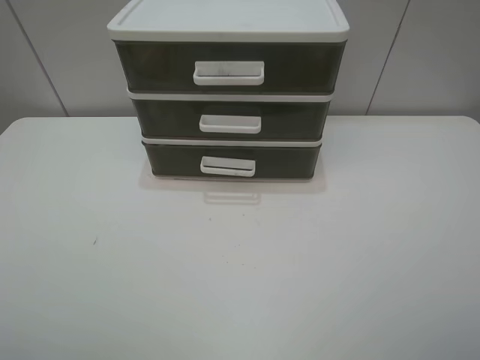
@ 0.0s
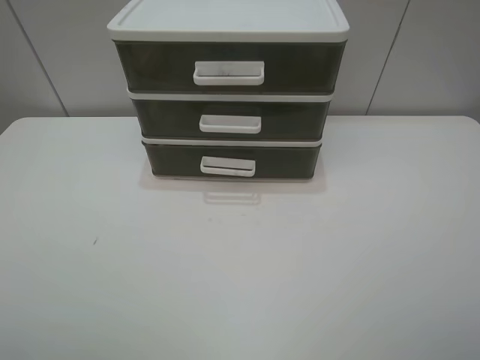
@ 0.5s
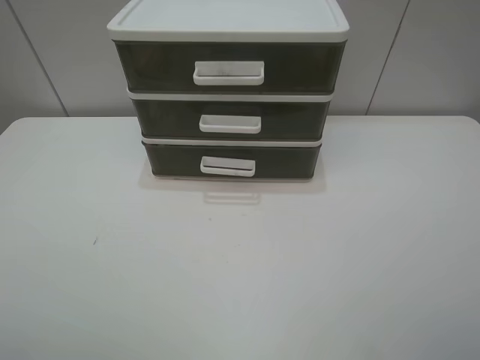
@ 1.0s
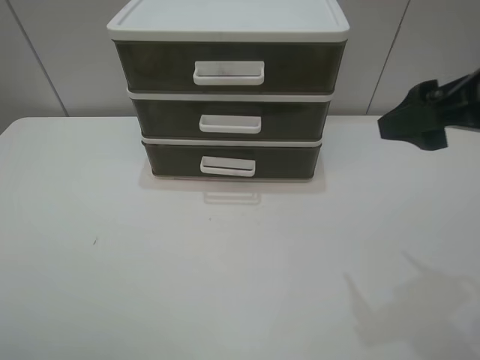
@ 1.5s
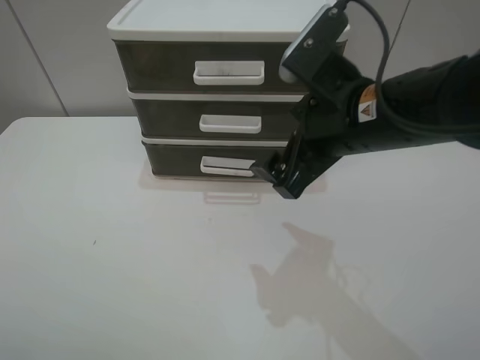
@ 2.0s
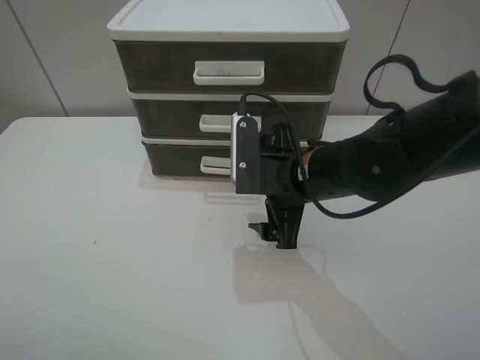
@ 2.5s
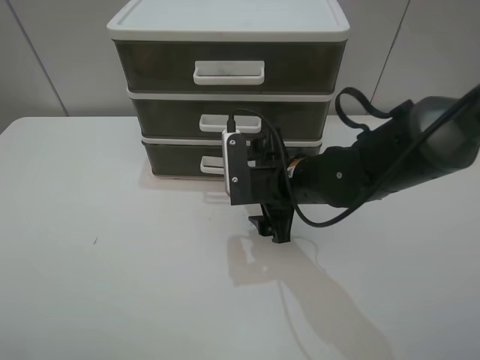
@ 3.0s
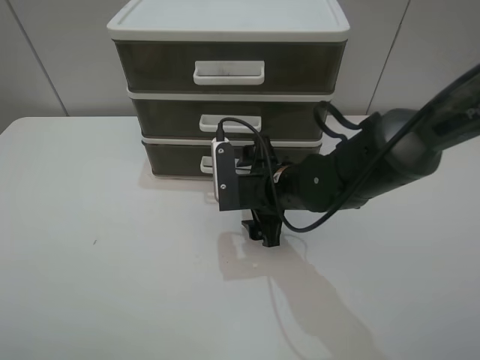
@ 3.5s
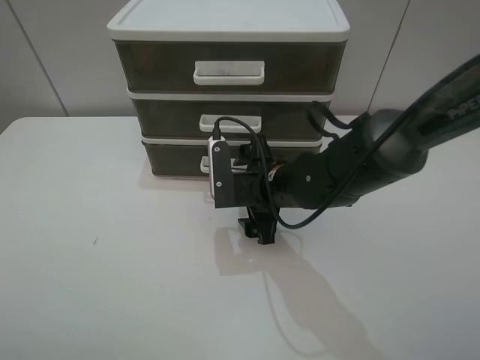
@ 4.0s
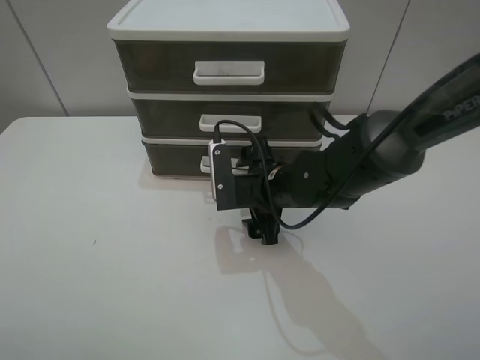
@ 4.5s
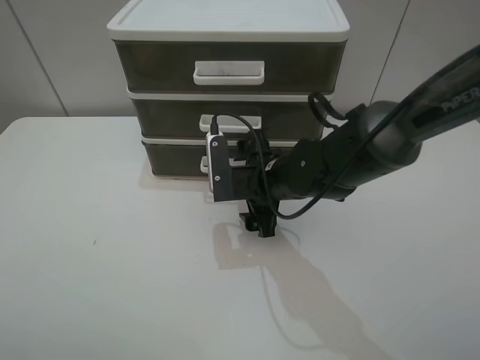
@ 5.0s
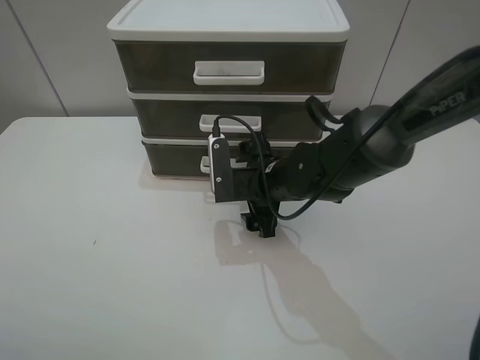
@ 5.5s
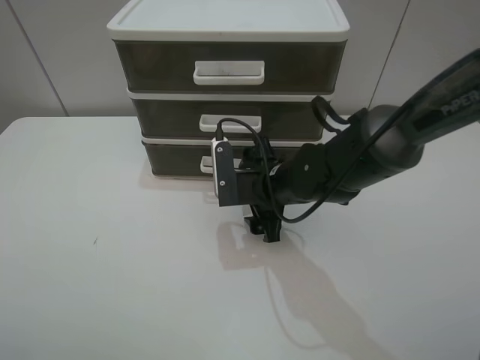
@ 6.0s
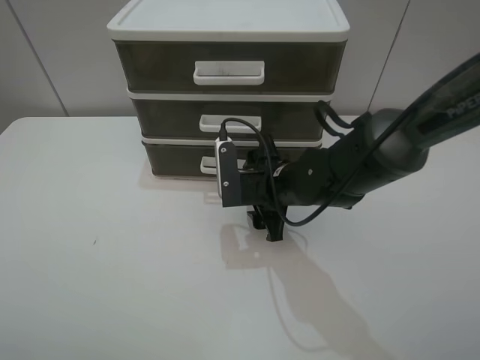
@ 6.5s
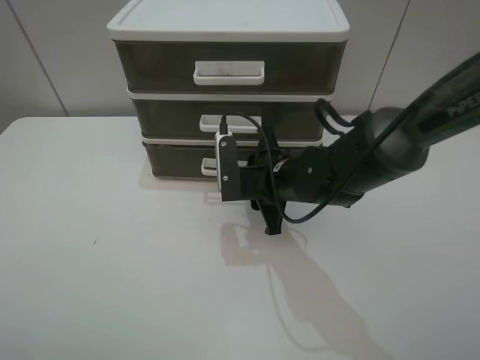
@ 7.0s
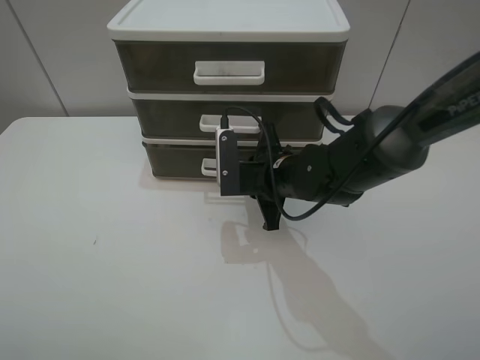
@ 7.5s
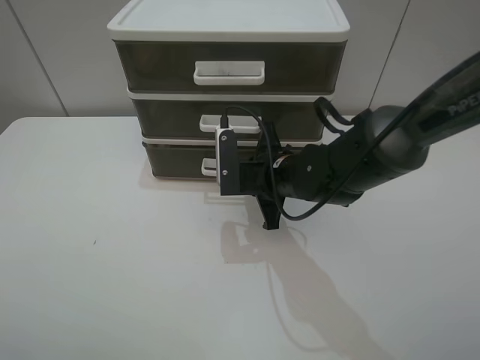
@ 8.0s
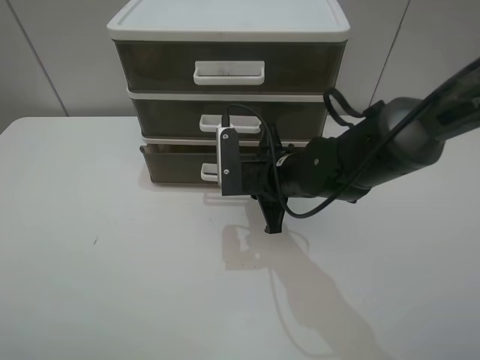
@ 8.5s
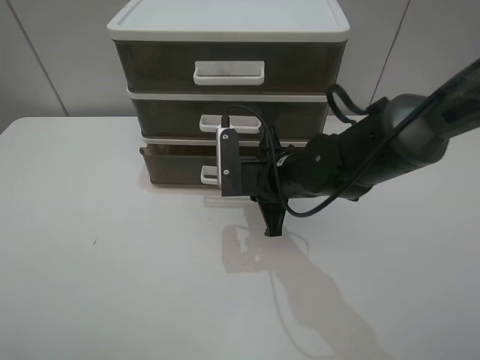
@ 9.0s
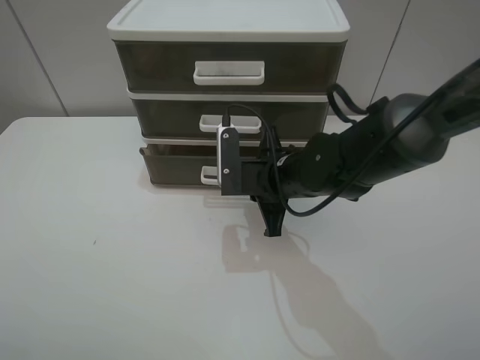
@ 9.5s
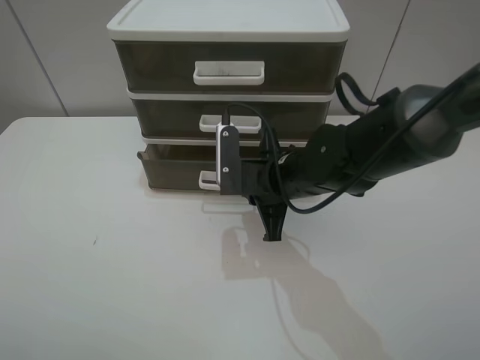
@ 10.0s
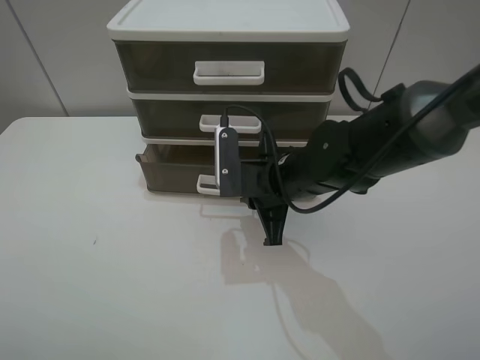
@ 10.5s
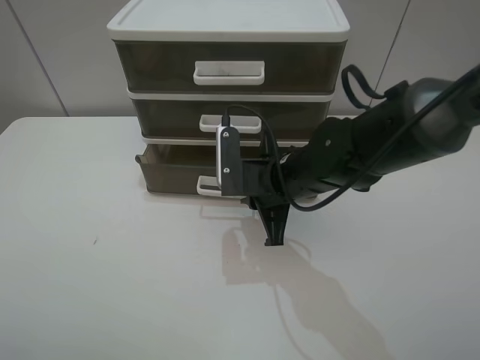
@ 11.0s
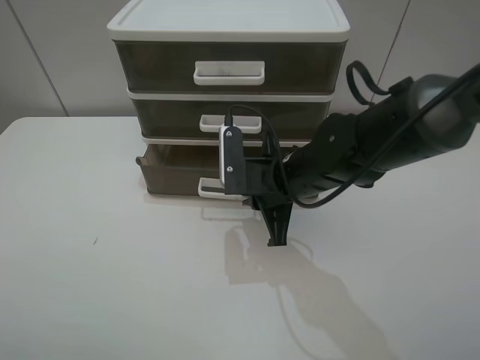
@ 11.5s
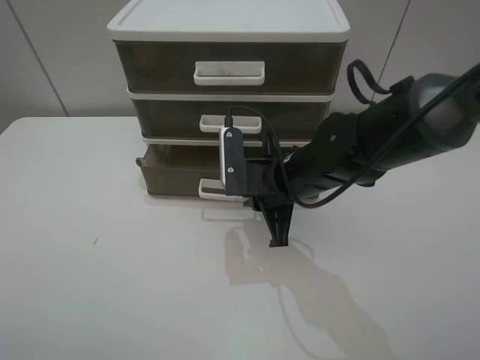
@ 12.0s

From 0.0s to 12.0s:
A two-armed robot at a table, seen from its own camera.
Task of the whole recording: open the bottom drawer.
Step, from 0.0s to 8.0s: Grab the bottom drawer with the right gripper.
From 0.0s to 2.0s: The right gripper moves forward and to the left, about 30 cm.
From 2.0s to 4.0s: The right gripper shifts some 15 cm downward.
From 4.0s to 6.0s: The two grippers keep their place.
From 6.0s to 8.0s: The right gripper closes.
From 8.0s to 12.0s: There are only small adjustments of the grippers.

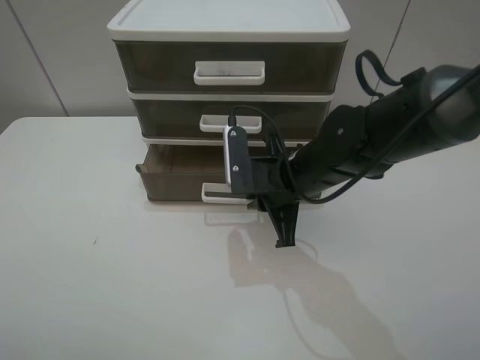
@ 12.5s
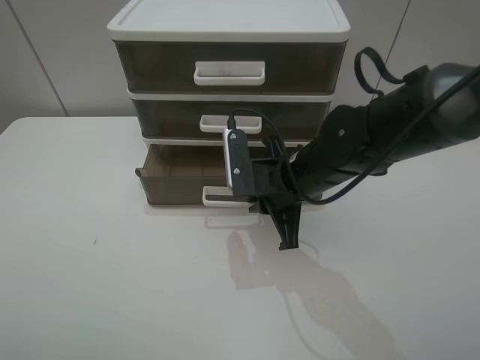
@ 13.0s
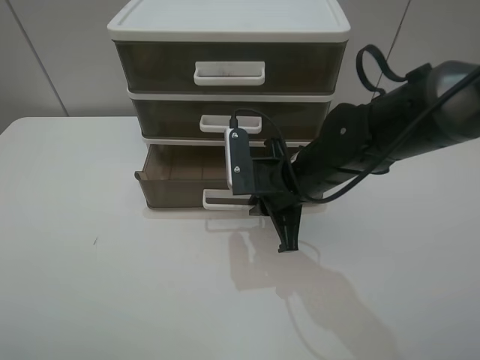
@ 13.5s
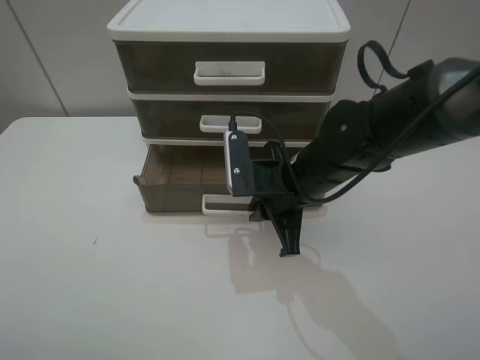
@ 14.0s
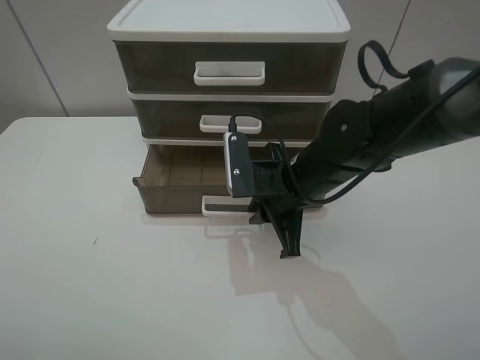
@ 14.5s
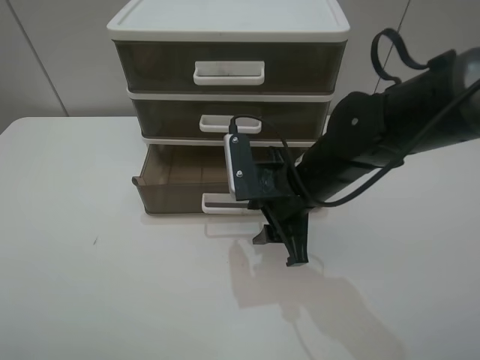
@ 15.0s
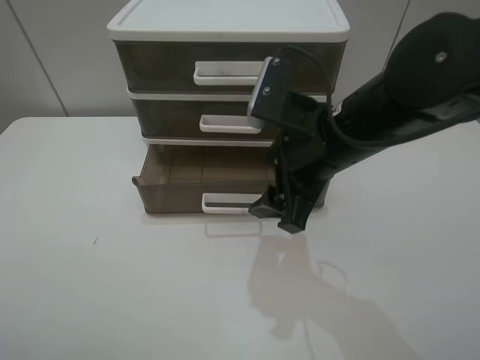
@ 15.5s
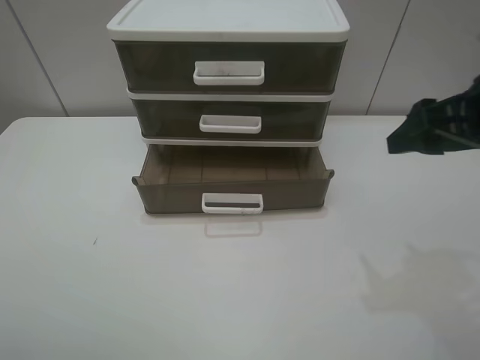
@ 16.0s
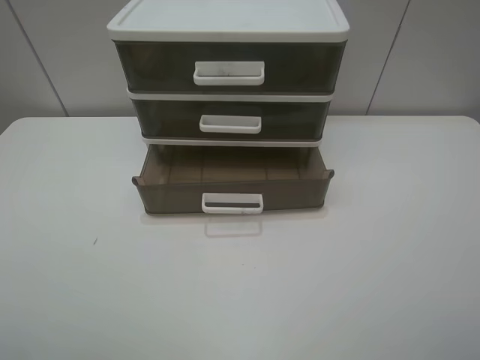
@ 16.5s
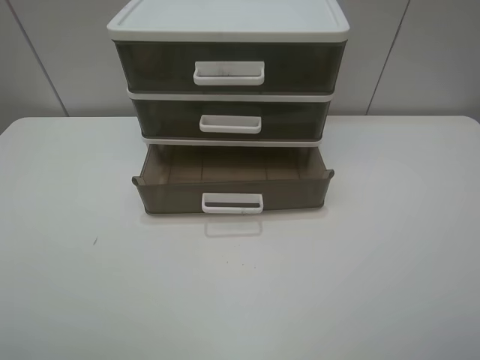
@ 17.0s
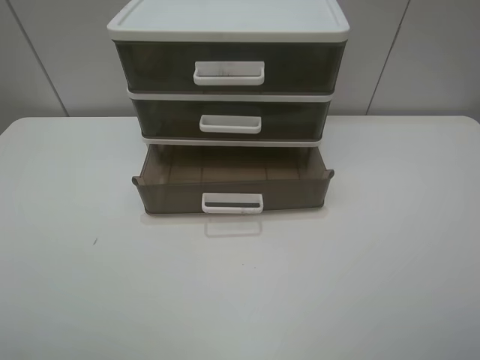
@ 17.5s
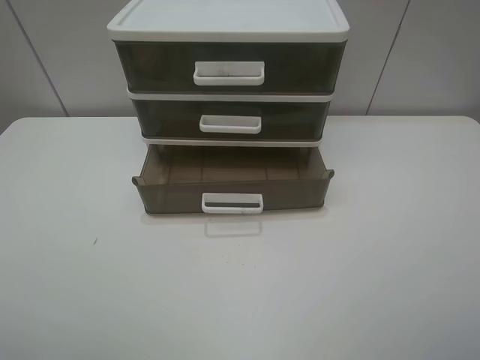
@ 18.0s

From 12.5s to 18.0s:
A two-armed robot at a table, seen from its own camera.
Task of the whole recording: open the bottom drawer.
Step, from 12.5s to 15.0s: Pull open the drawer with the right gripper.
From 12.5s to 14.5s: There are only small adjustments of the grippers.
From 14.5s to 16.0s: The right gripper travels to the right and upward by roughly 25 cm, and opens.
From 16.0s to 18.0s: The right gripper travels backward by about 20 cm.
